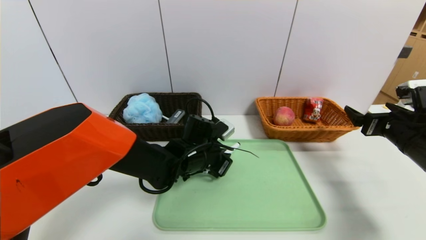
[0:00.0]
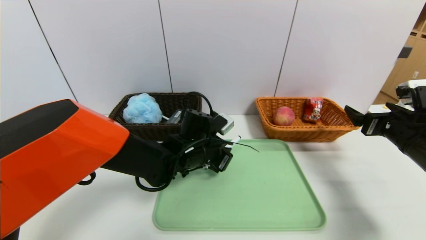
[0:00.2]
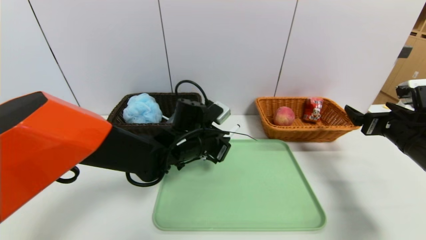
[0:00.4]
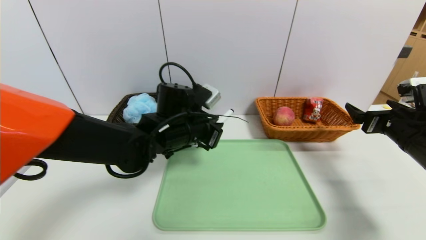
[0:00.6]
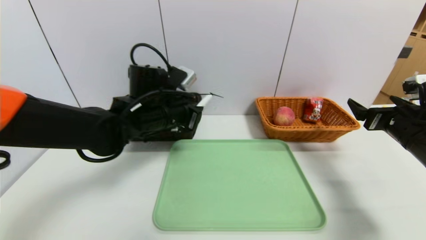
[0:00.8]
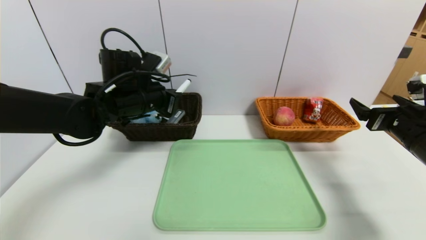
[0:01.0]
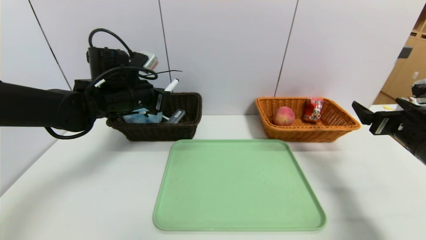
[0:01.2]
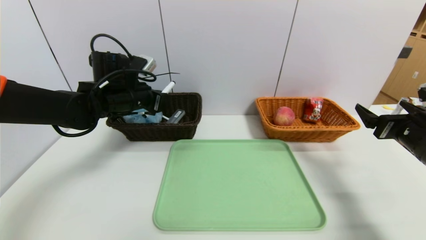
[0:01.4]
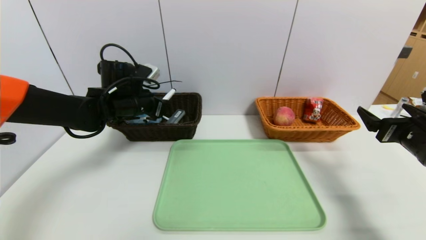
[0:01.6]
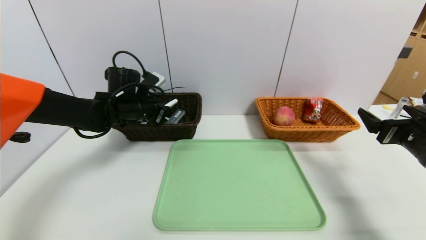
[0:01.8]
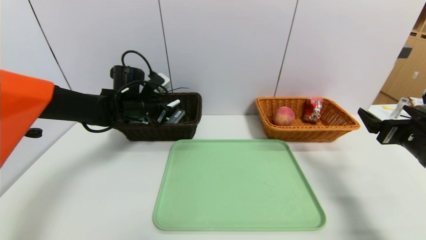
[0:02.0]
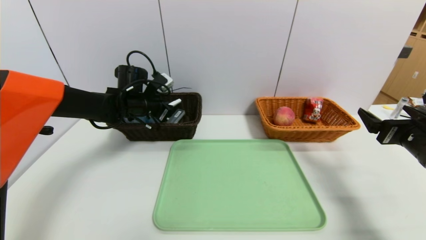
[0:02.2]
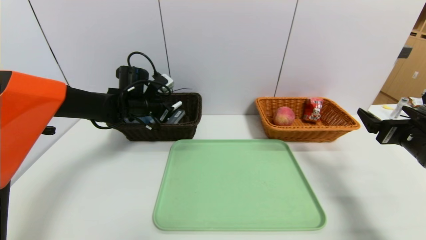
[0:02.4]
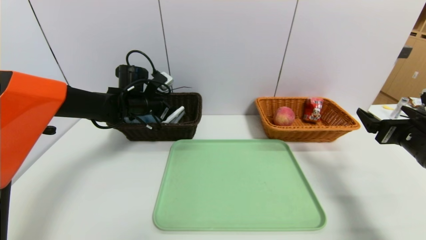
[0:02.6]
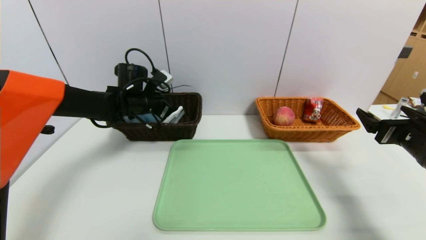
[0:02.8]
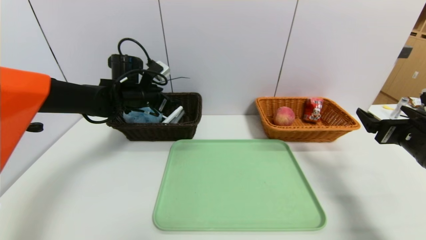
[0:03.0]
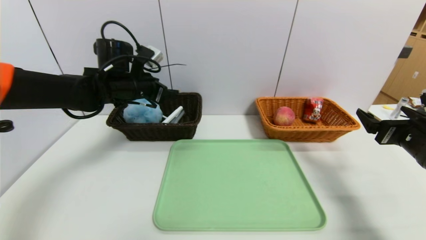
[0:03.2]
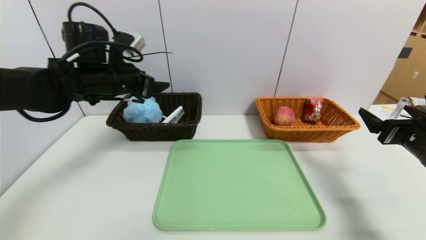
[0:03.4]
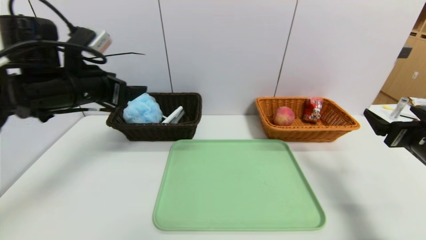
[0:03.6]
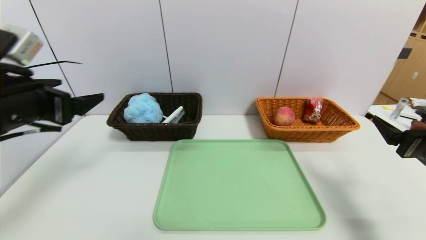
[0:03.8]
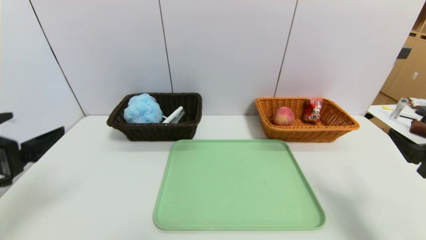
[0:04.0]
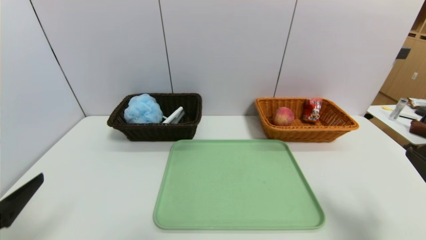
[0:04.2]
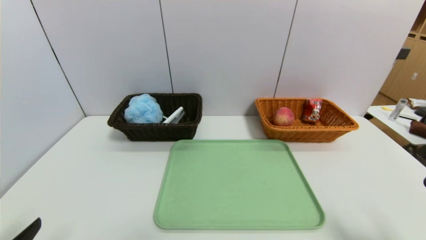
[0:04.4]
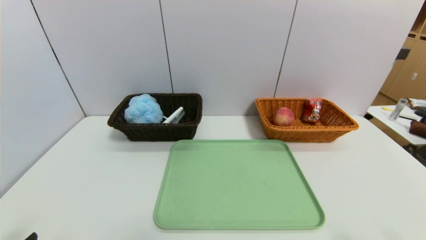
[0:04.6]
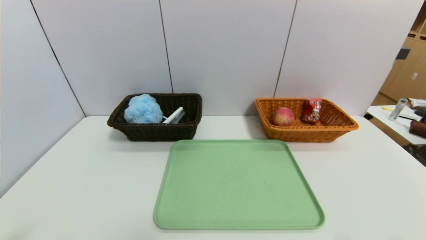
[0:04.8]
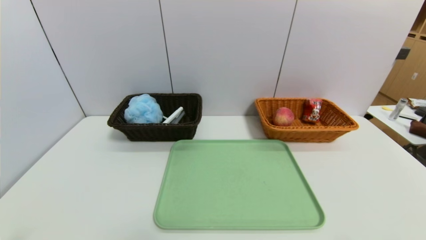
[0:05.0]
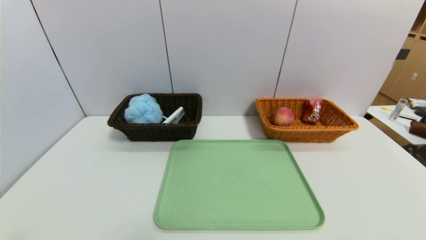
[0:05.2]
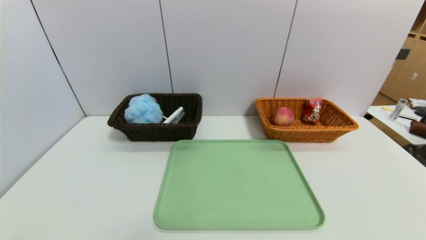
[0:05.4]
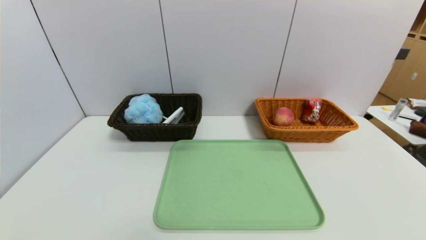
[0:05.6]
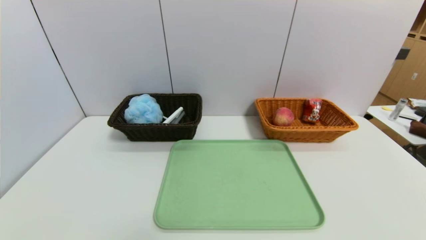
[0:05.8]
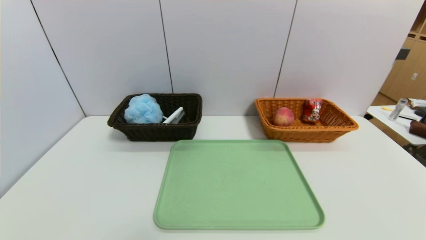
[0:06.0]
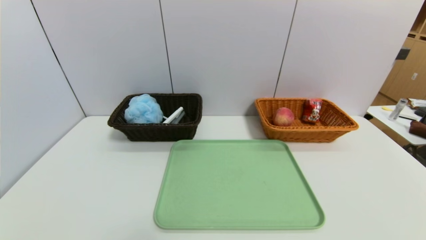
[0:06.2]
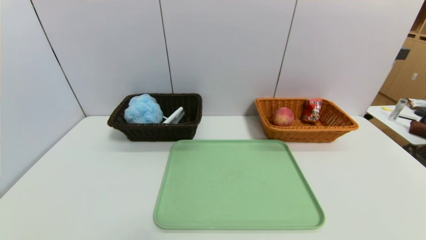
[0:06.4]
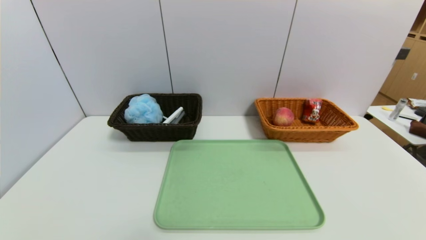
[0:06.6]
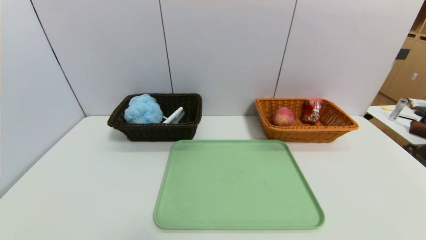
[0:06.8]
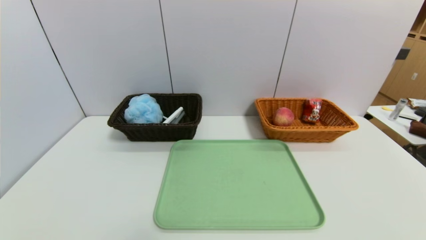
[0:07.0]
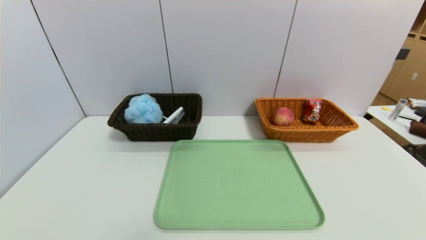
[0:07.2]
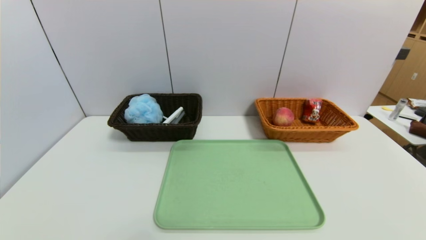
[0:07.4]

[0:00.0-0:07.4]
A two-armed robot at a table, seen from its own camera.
Task of the whole recording: place the food in the right basket with the right gripper, and place the non food items in the left basket with the left gripper.
Step, 0:00.0 to 0:03.2: Grasp the black marker and put it in the left basket.
0:00.0 to 0:01.4: The left gripper moves to the left and upward, about 20 cm.
0:01.4 to 0:03.0: The left gripper opens up.
0:03.0 to 0:04.4: The right gripper moves backward, about 20 cm. The left gripper is displaced backward by some 40 cm.
